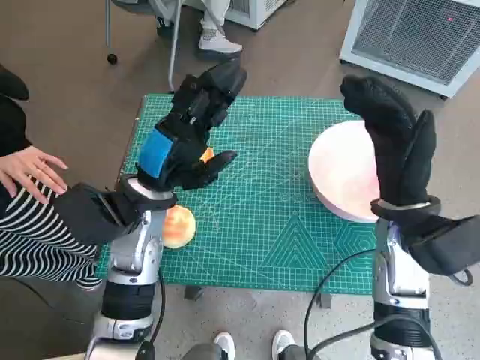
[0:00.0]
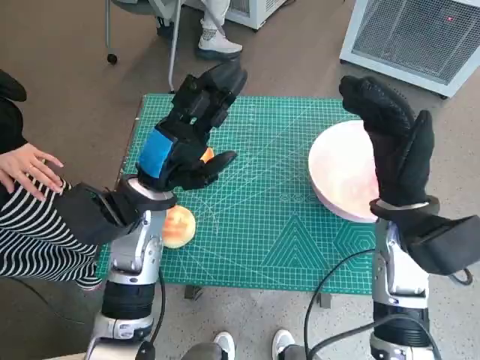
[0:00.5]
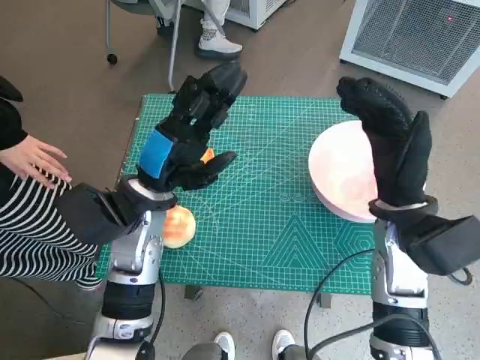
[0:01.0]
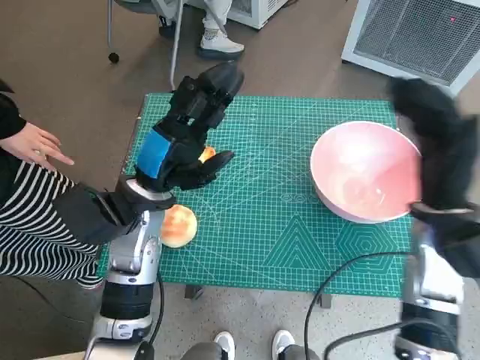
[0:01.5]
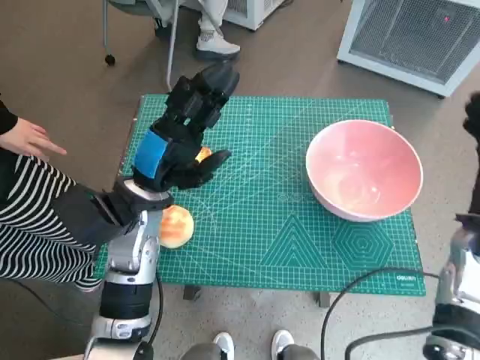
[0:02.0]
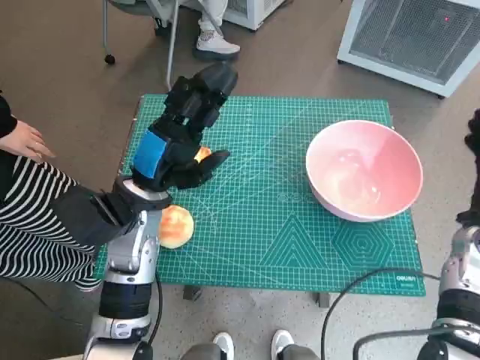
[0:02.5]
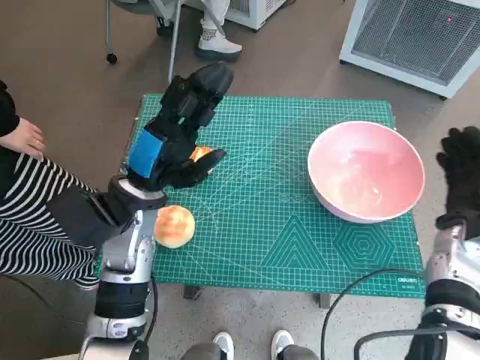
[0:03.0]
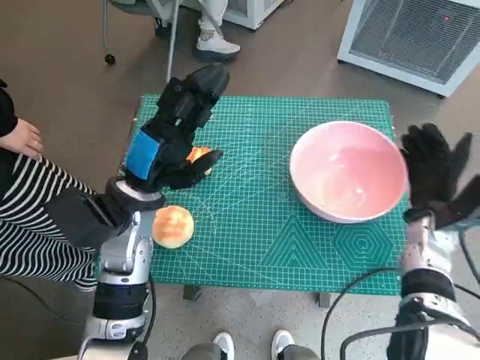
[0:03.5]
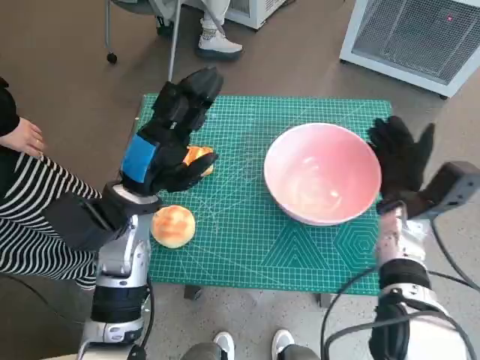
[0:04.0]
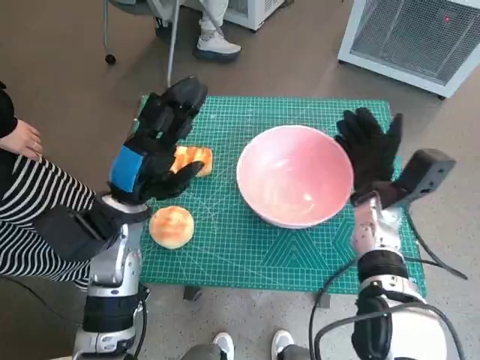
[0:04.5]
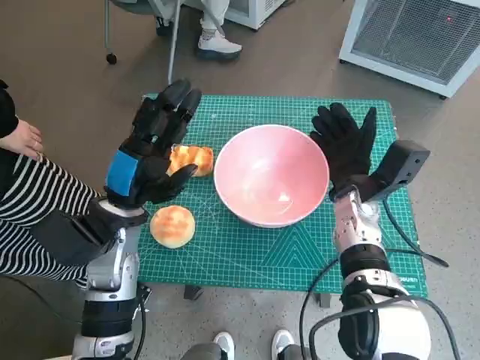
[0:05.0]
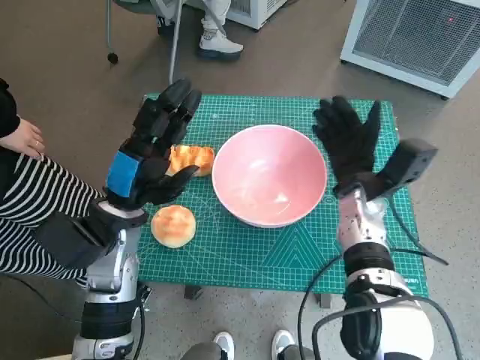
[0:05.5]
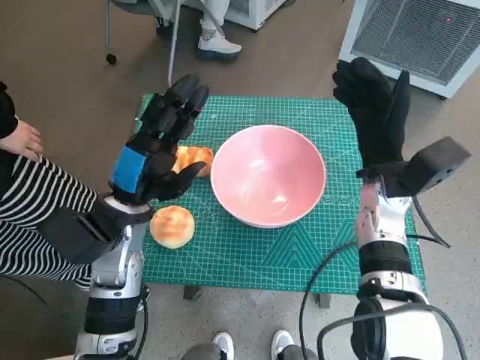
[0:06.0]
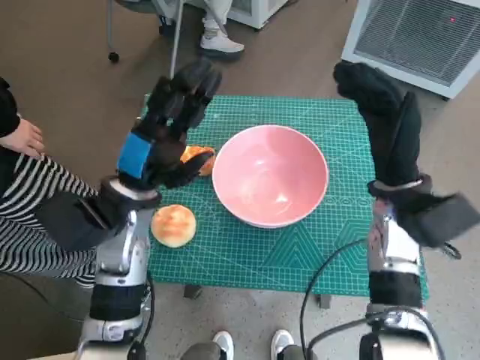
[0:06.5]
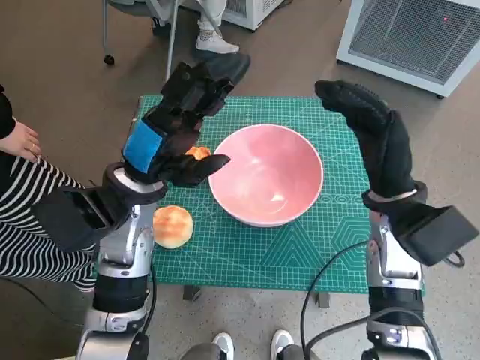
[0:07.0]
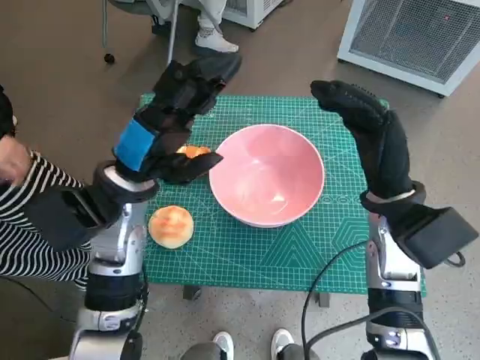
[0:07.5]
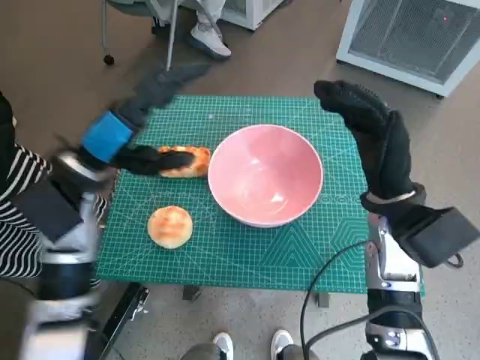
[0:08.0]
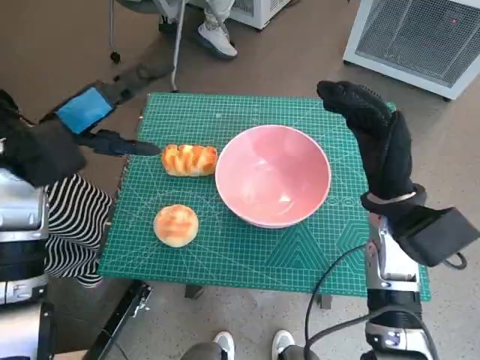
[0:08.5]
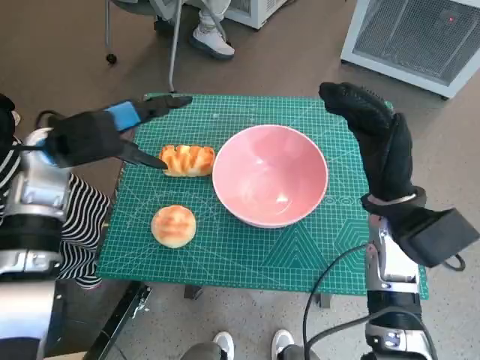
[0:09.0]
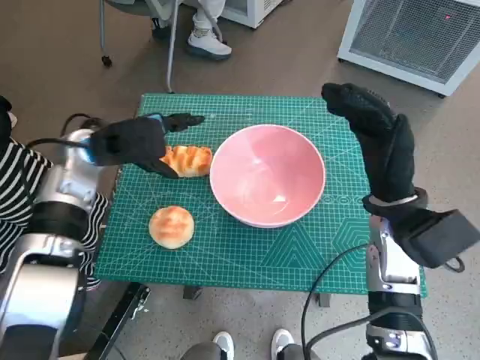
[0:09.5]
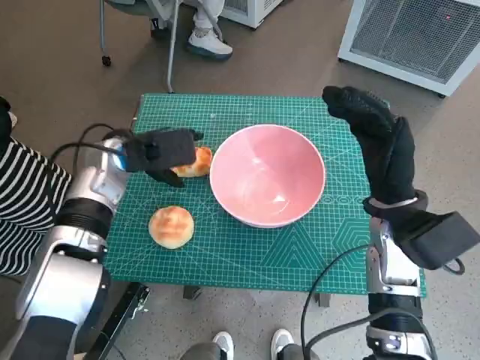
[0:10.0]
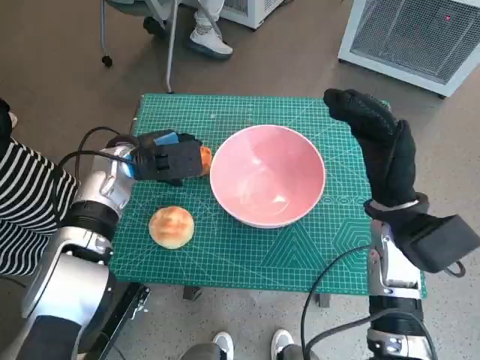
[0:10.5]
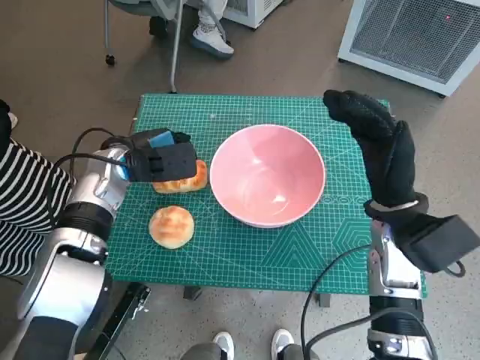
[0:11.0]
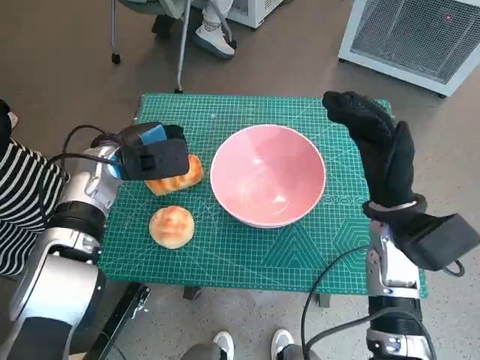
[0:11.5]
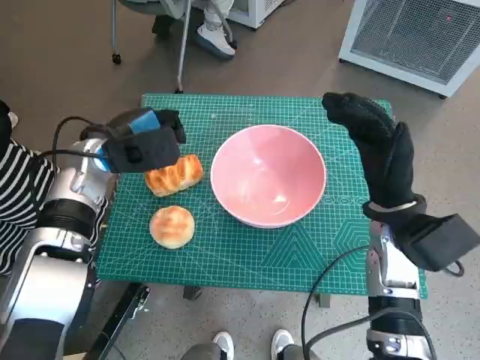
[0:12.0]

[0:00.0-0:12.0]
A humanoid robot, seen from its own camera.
Task of the whole recording: Push the bowl into the center of the table and put the bread into the bowl.
Step, 0:00.0 to 0:05.5: Move the pink bowl to the center of table with right hand.
0:02.0 to 0:04.0: The right hand is displaced downward, to the left and forward by some 10 cm.
0:04.0 to 0:06.0: The right hand moves upward, roughly 5 cm.
0:06.0 to 0:08.0: The left hand travels upward by about 5 cm, while the right hand moves backward, approximately 5 cm.
0:08.0 to 0:10.0: The left hand travels forward by about 5 cm.
0:10.0 to 0:12.0: The hands move only a little.

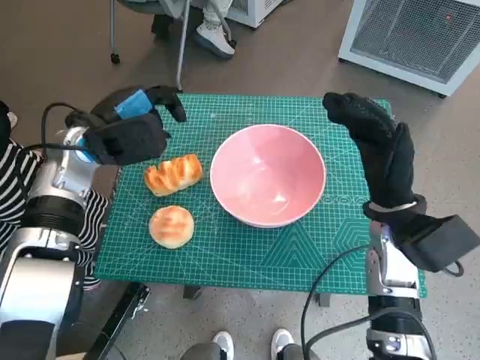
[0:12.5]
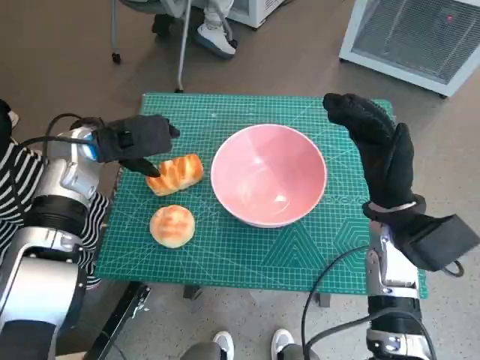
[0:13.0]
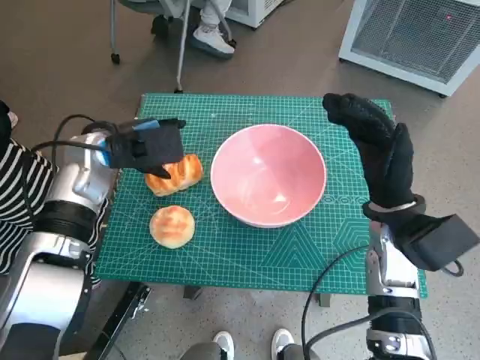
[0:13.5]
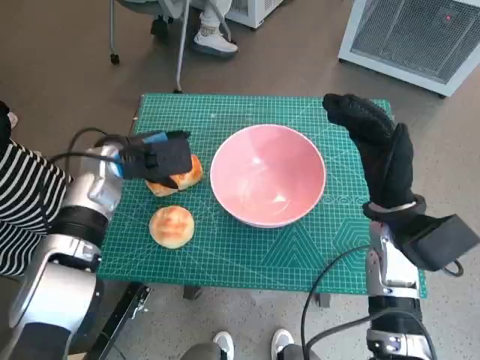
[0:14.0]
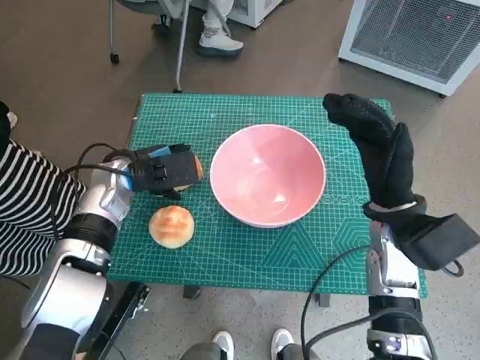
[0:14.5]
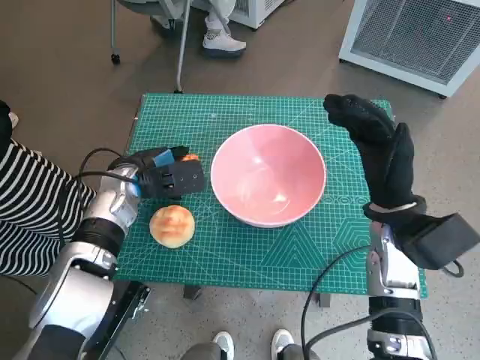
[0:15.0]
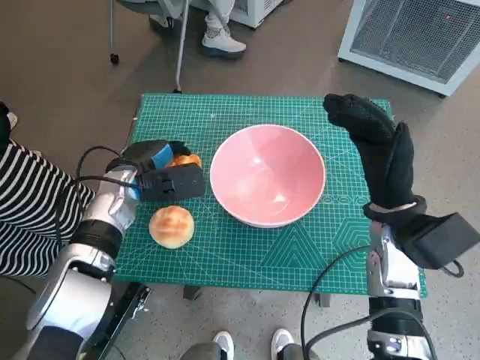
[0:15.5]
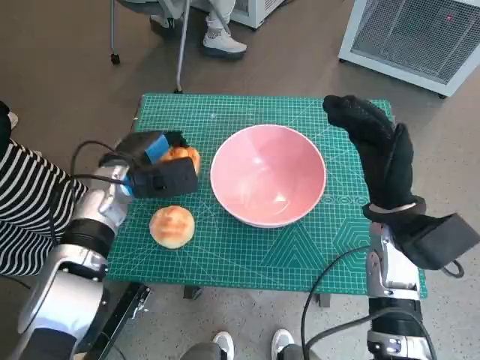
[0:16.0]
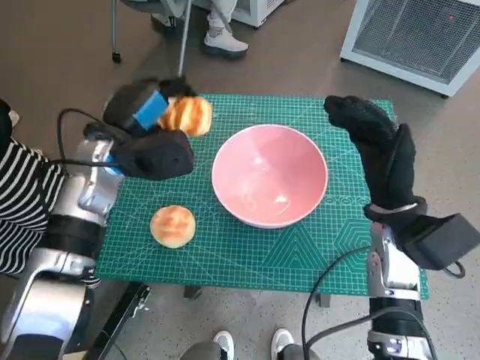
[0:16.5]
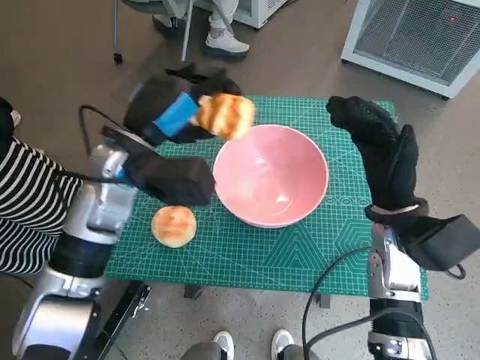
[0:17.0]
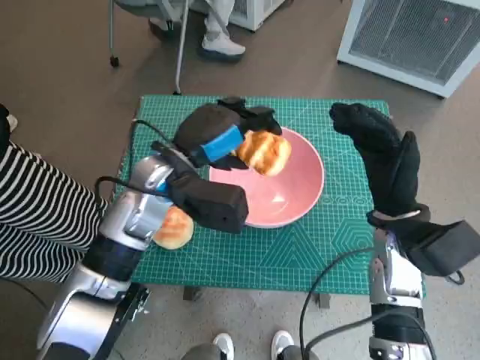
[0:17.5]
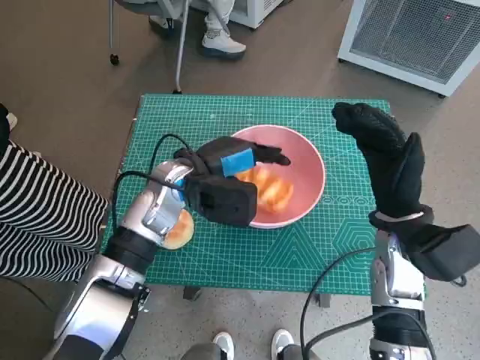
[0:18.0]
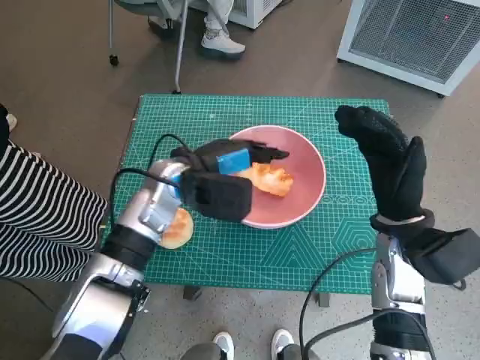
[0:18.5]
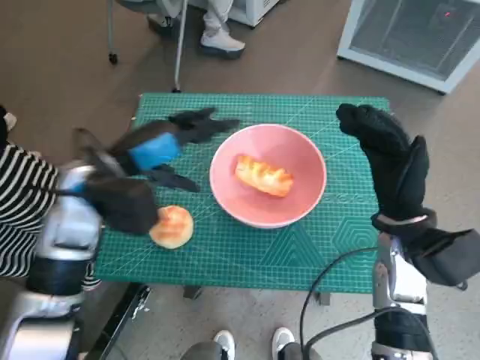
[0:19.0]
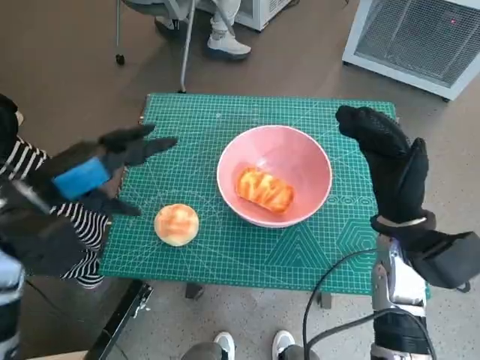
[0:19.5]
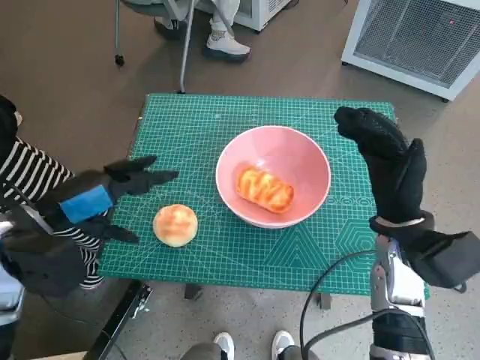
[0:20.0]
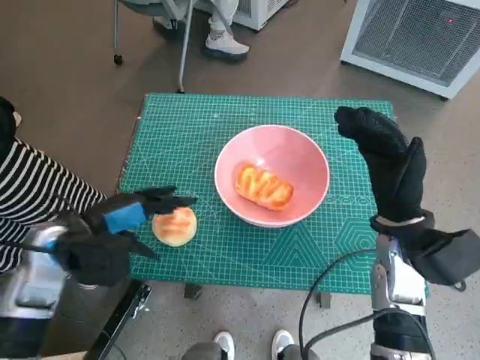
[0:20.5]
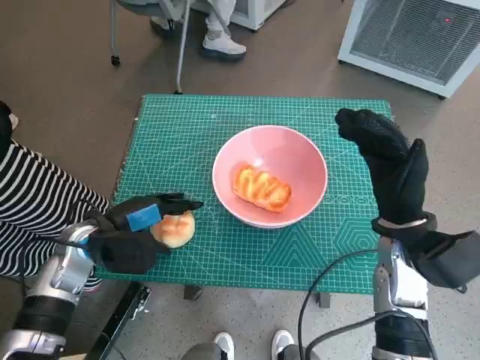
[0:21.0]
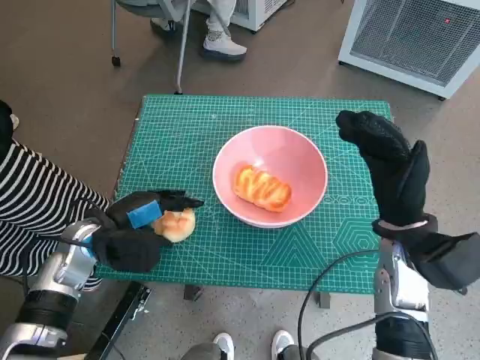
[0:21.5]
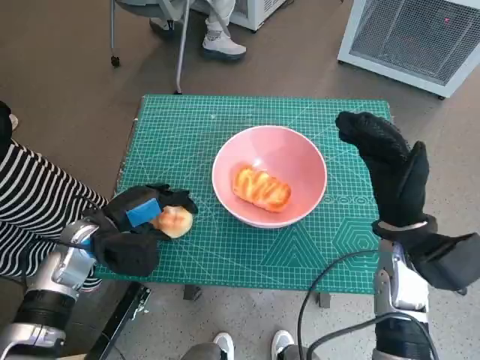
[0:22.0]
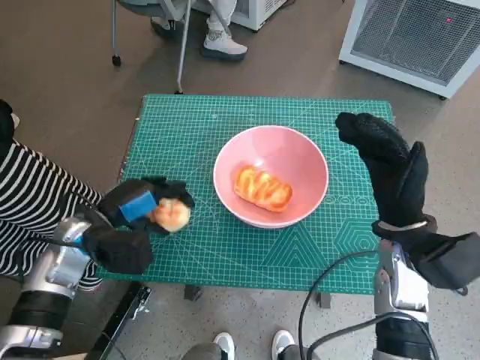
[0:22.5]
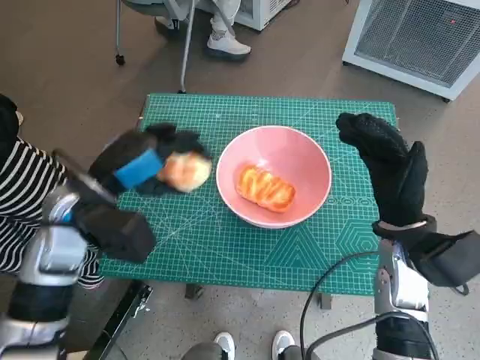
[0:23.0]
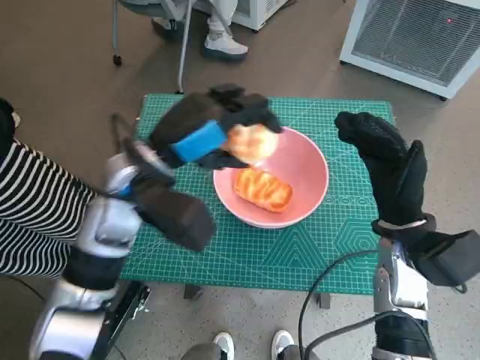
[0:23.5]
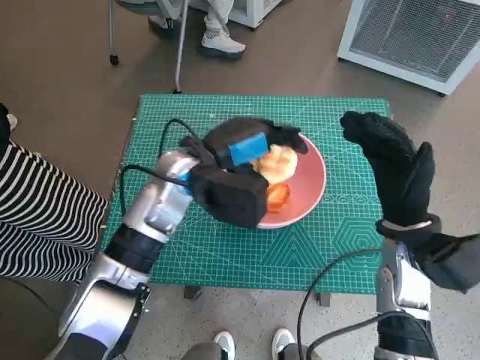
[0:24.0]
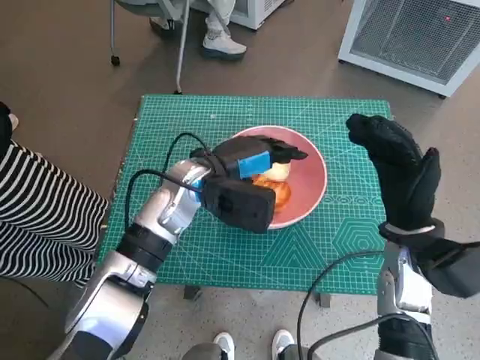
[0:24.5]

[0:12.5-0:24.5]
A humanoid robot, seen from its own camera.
Task of the whole recording: Push the bowl into the center of the table and put the bread into the bowl.
Step, 0:12.5 to 0:15.5: Grasp the long bread with left hand.
Step, 0:16.0 to 0:18.5: Place the long bread in pink bowl with left hand.
Step, 0:19.0 to 0:21.5: Grasp the round bread with left hand.
0:12.5 to 0:14.5: The left hand moves downward, about 5 cm.
0:14.5 to 0:16.5: The left hand shifts roughly 5 cm upward.
0:16.5 to 0:18.5: The left hand travels to the right by roughly 10 cm.
0:18.5 to 0:20.5: The left hand heads to the left and backward, covering about 15 cm.
0:20.5 to 0:22.5: The left hand moves about 5 cm.
0:22.5 to 0:24.5: The left hand shifts about 15 cm to the right and forward.

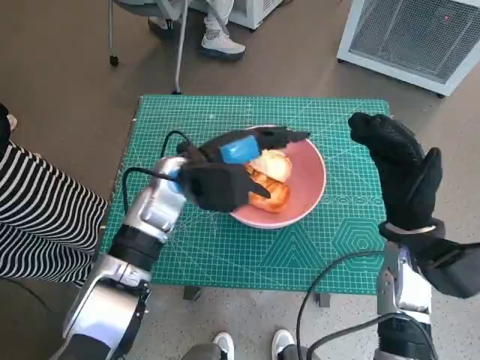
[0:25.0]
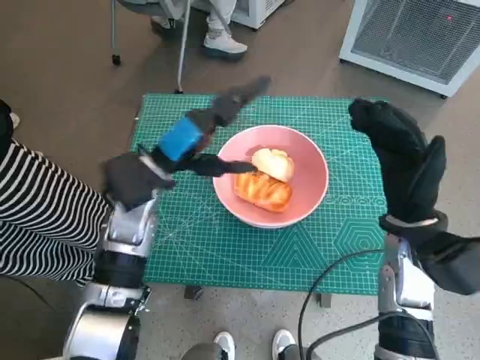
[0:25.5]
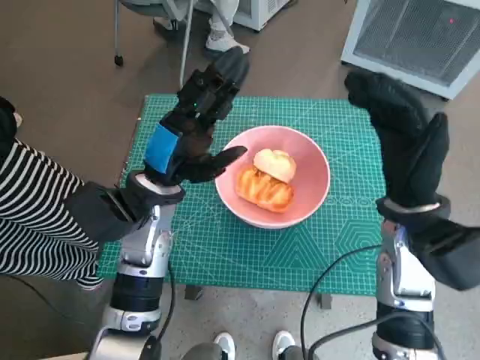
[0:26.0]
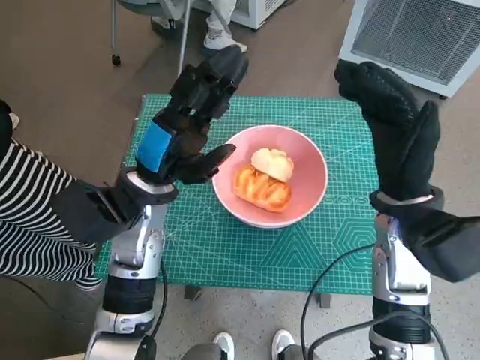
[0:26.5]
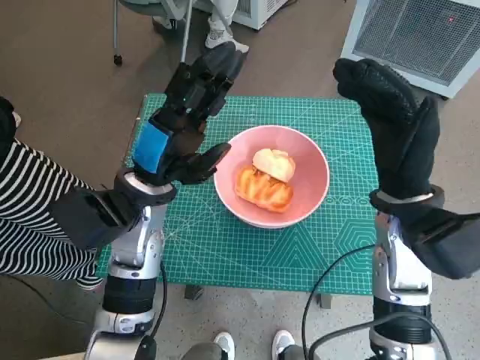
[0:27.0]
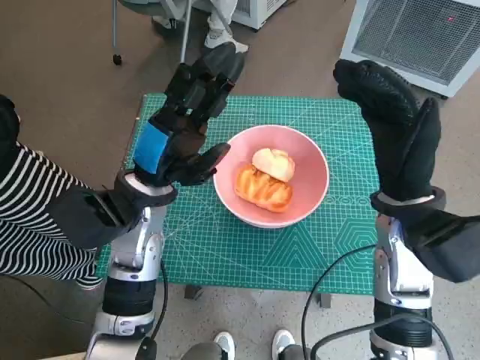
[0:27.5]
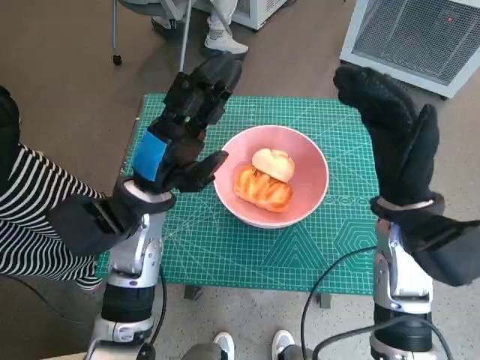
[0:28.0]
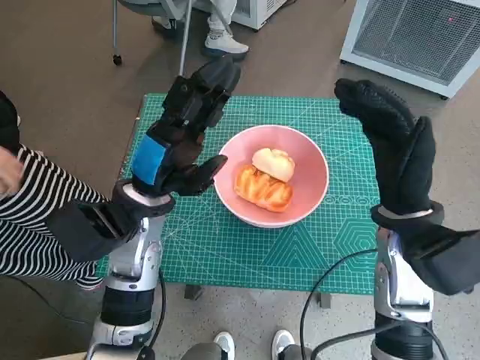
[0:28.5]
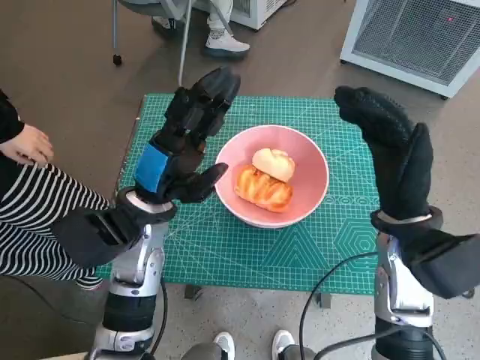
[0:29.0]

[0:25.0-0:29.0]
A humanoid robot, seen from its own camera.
Task of the whole recording: Push the bowl into the center of the table and put the bread into the bowl.
0:25.0 to 0:27.0: The right hand moves upward, about 5 cm; the left hand heads backward, covering roughly 5 cm.
